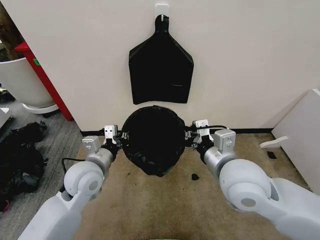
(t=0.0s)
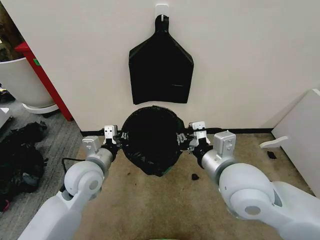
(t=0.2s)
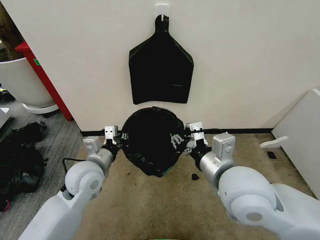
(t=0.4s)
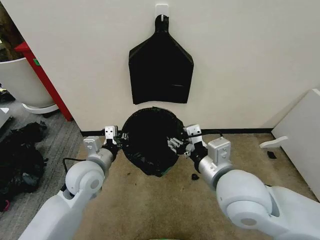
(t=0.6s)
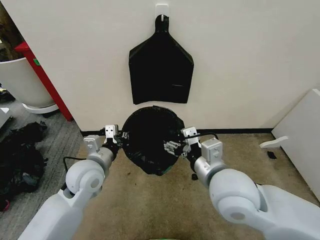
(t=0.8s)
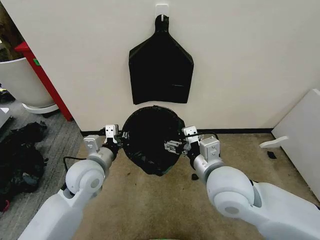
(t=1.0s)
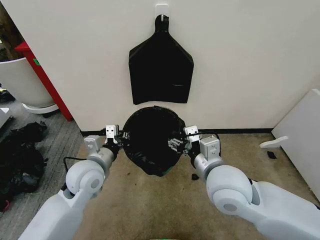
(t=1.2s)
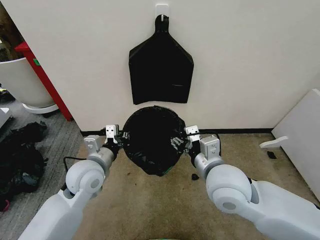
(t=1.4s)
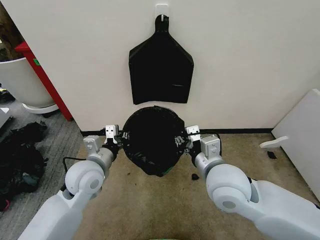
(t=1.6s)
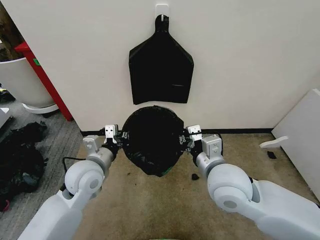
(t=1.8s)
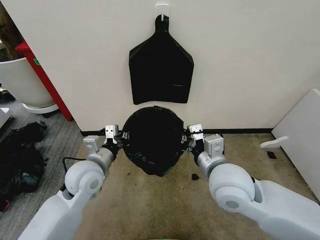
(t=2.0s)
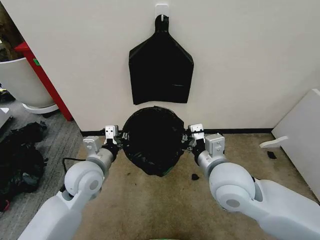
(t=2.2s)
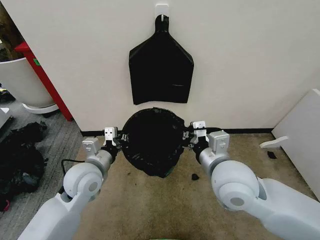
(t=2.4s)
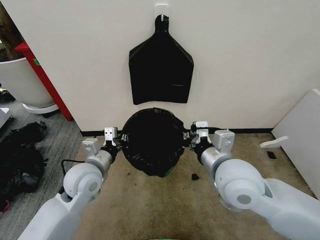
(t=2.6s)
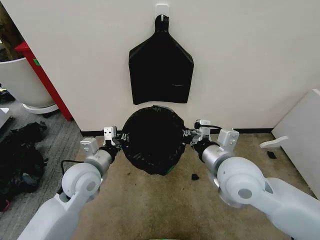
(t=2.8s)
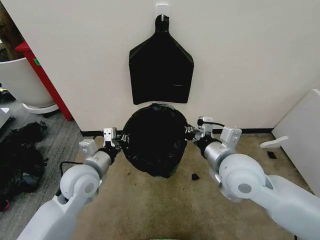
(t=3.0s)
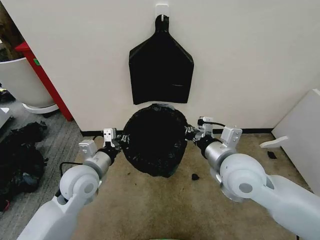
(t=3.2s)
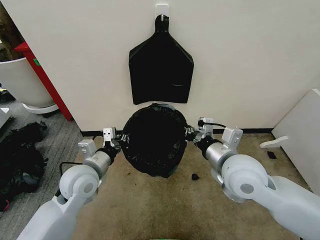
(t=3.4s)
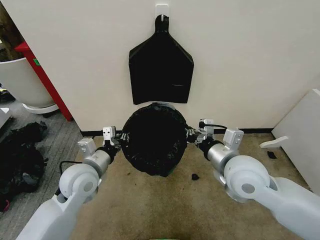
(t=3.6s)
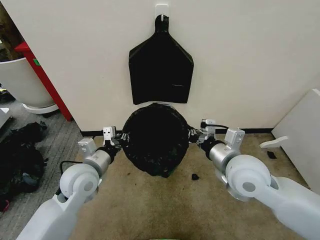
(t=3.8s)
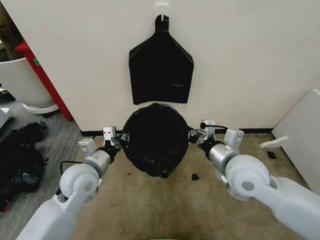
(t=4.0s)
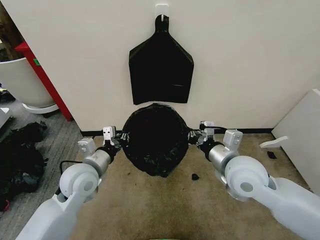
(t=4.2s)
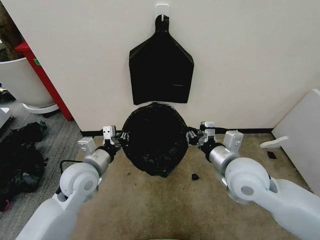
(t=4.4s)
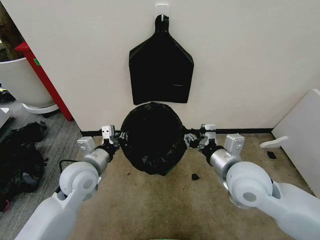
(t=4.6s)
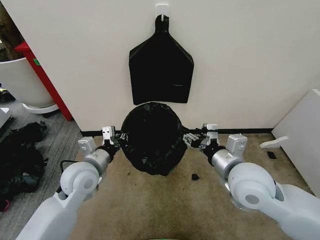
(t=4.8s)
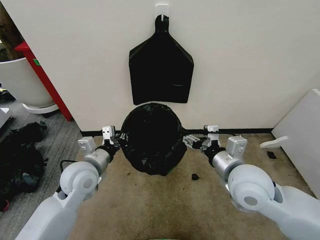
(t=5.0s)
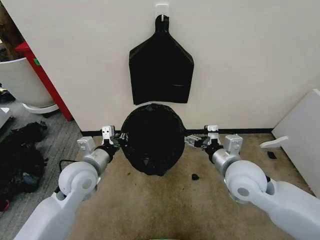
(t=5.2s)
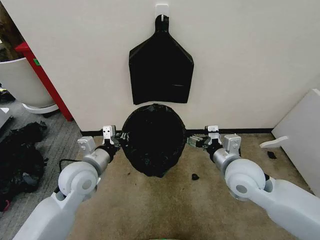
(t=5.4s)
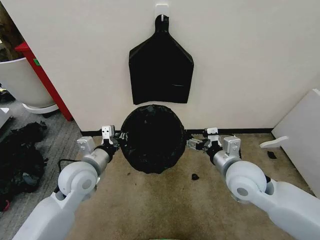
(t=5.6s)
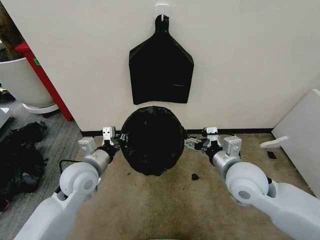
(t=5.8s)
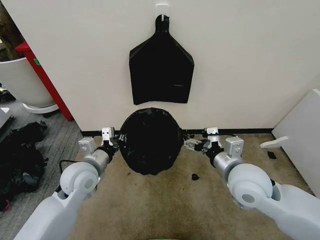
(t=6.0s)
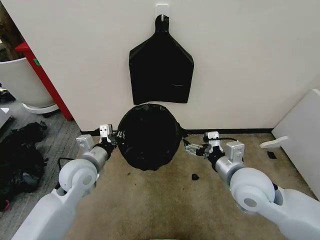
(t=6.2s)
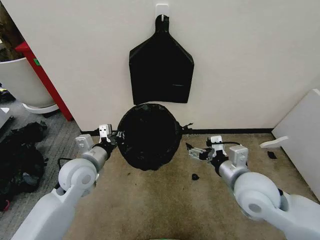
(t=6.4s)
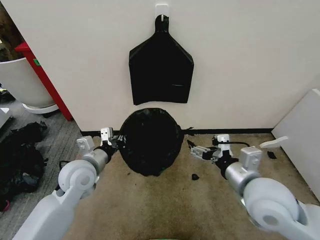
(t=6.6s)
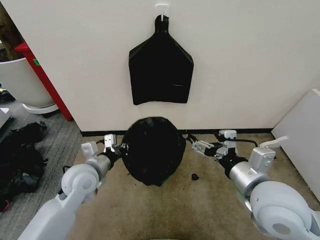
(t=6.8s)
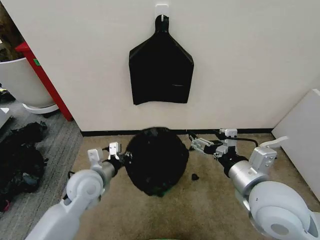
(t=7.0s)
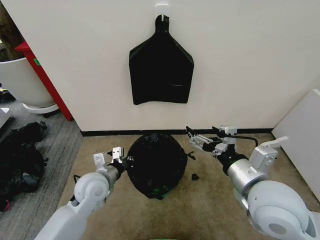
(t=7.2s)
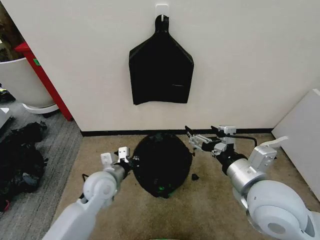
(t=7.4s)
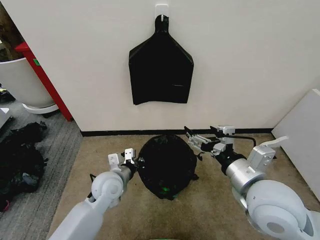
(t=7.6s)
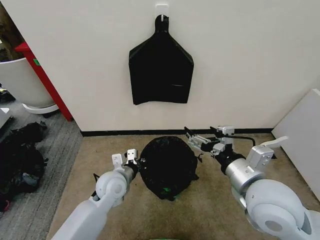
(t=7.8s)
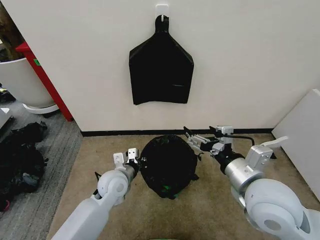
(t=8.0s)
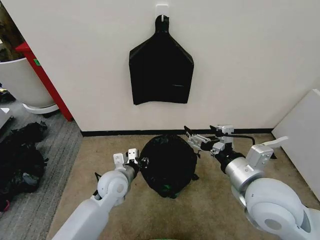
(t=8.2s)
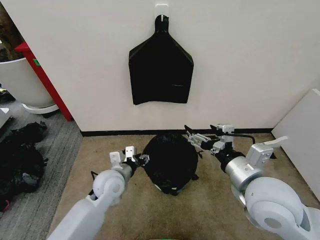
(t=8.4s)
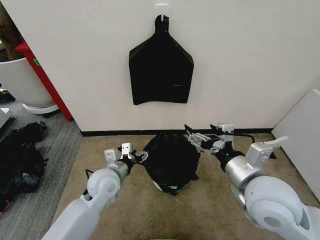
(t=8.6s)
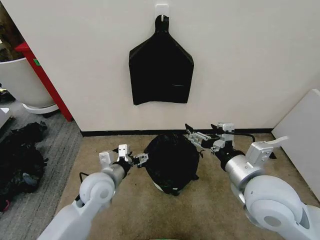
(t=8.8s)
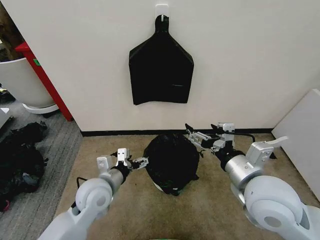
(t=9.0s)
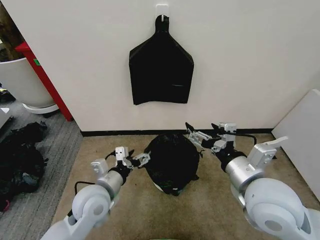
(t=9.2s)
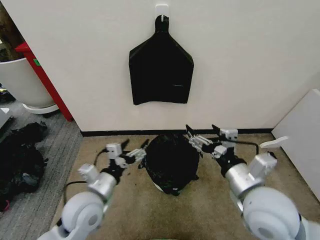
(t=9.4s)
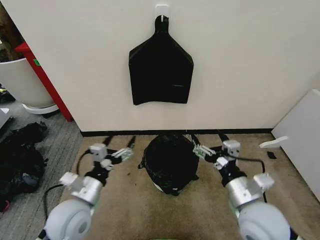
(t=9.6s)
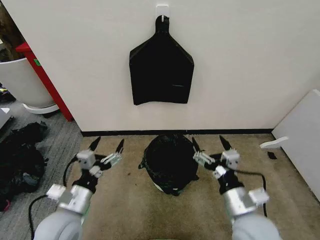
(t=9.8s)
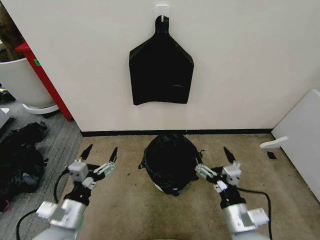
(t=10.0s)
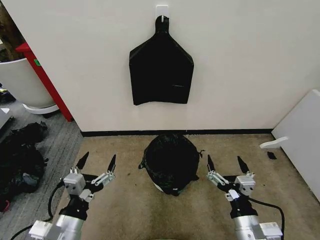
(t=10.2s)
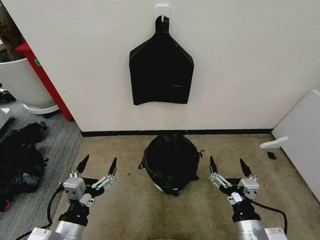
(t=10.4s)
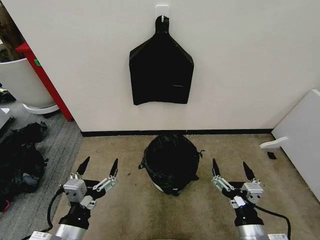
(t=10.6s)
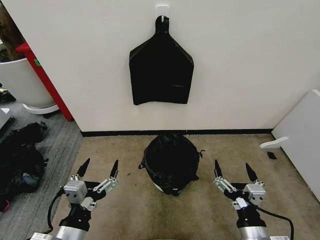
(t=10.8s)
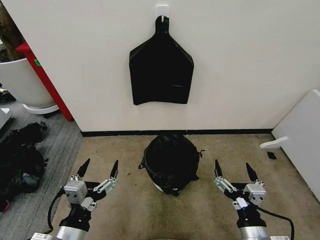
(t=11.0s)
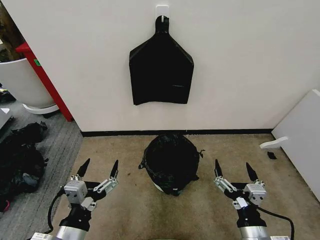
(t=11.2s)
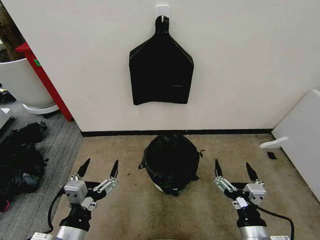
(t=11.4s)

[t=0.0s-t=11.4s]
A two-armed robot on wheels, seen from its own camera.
Task of the whole recording: Place the garbage bag over the trash bin.
t=0.0s to t=1.4s: The right gripper opens up.
t=1.4s to t=2.8s: The right gripper closes its fingers.
t=2.8s to t=4.2s: The grippers make only small movements.
t=4.2s to t=5.6s: The right gripper opens up.
t=5.6s to t=7.2s: The right gripper heads backward and upward, covering roughly 10 cm. The left gripper is displaced downward by approximately 5 cm.
t=7.2s to t=8.6s: The left gripper opens up.
t=8.6s to t=10.0s: The left gripper is displaced backward and to the left by roughly 20 cm; the right gripper moves downward and backward, approximately 15 cm.
t=10.0s to t=11.4s: The left gripper moves backward, approximately 5 cm.

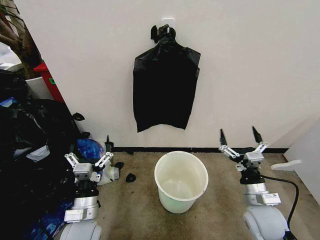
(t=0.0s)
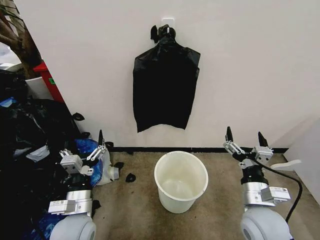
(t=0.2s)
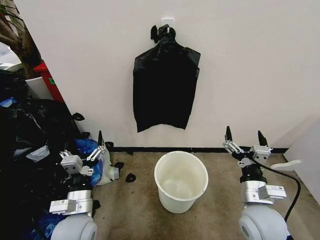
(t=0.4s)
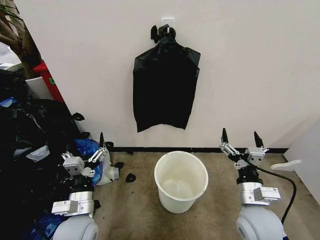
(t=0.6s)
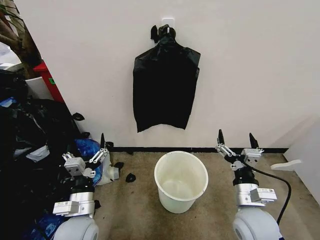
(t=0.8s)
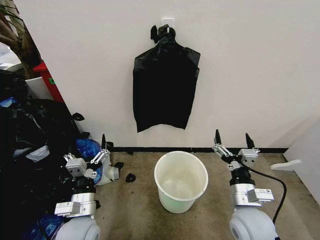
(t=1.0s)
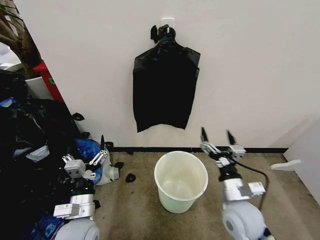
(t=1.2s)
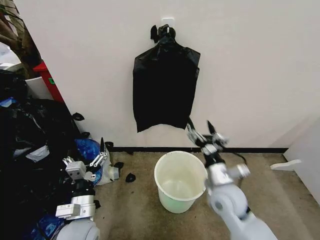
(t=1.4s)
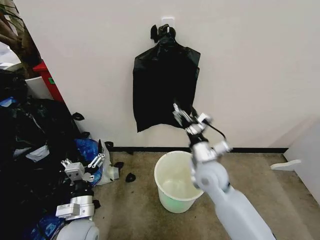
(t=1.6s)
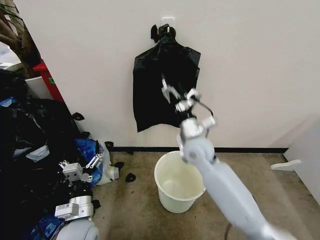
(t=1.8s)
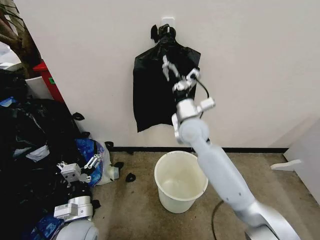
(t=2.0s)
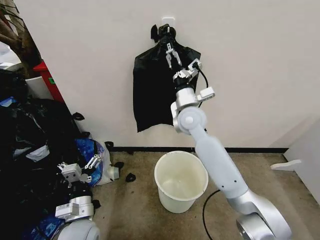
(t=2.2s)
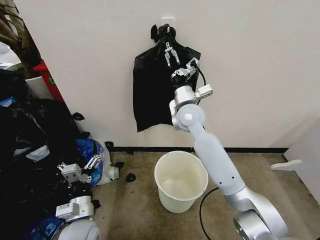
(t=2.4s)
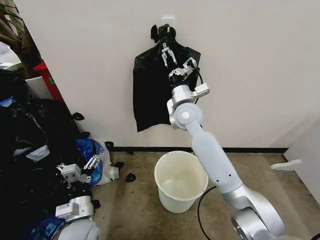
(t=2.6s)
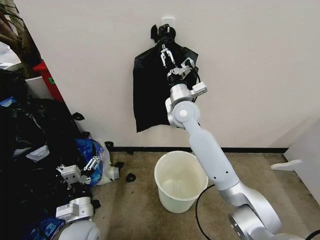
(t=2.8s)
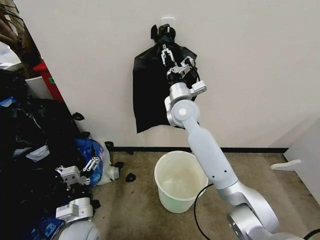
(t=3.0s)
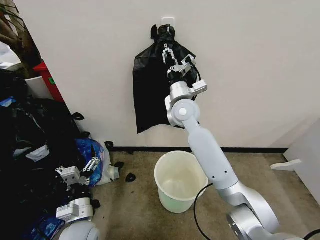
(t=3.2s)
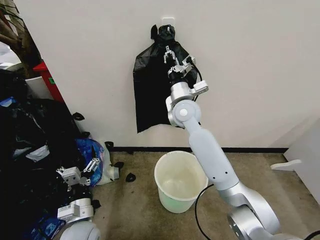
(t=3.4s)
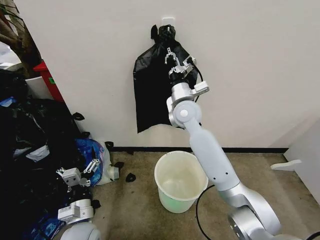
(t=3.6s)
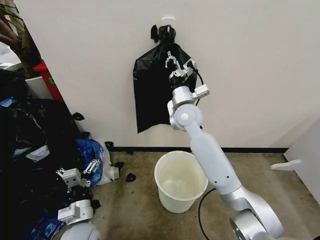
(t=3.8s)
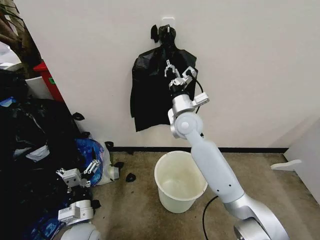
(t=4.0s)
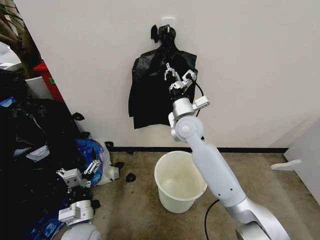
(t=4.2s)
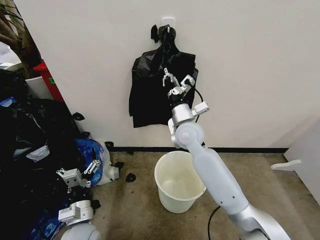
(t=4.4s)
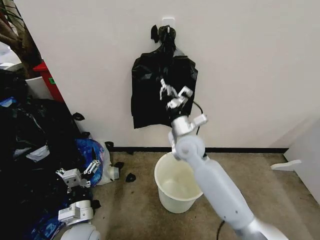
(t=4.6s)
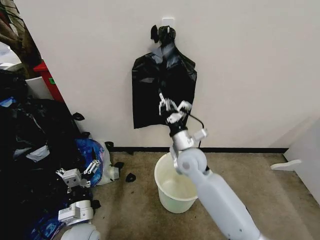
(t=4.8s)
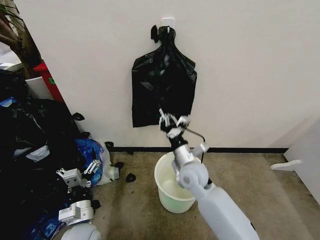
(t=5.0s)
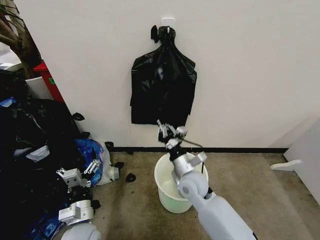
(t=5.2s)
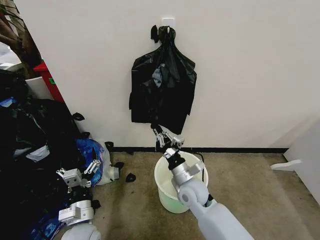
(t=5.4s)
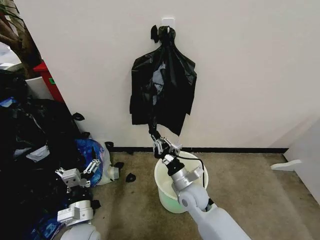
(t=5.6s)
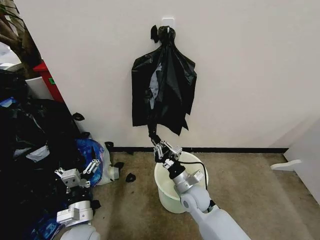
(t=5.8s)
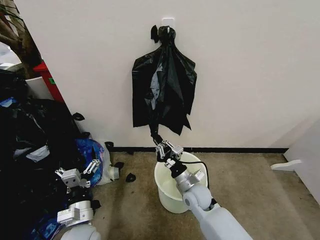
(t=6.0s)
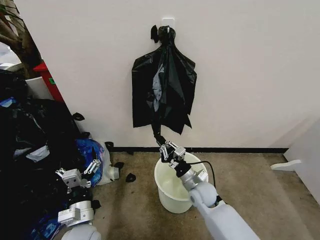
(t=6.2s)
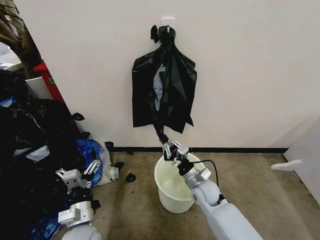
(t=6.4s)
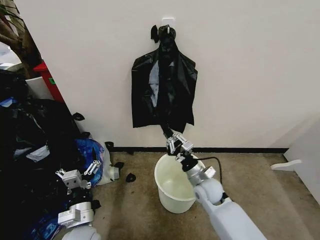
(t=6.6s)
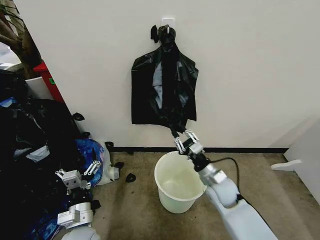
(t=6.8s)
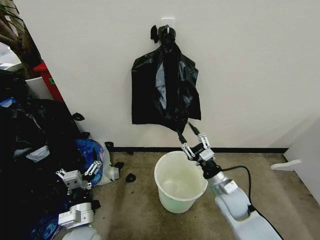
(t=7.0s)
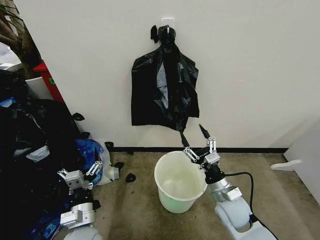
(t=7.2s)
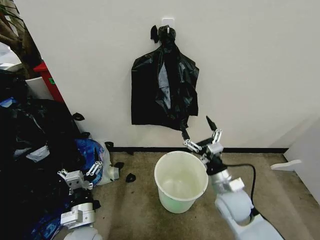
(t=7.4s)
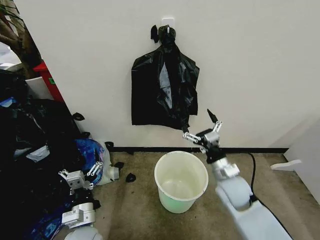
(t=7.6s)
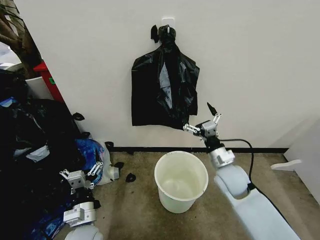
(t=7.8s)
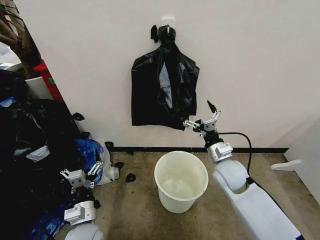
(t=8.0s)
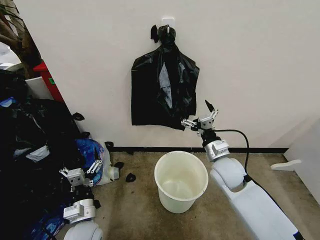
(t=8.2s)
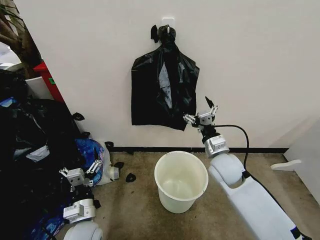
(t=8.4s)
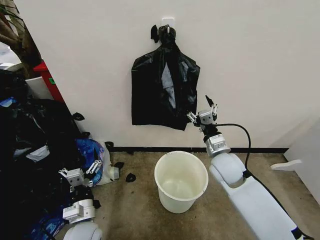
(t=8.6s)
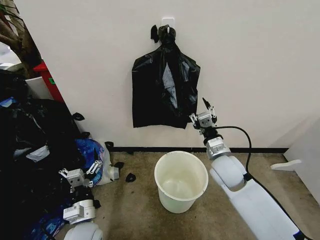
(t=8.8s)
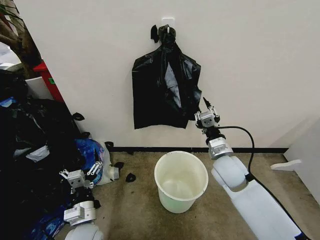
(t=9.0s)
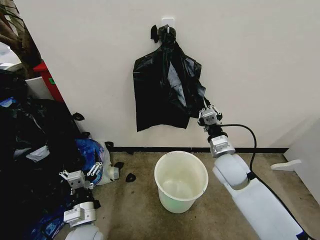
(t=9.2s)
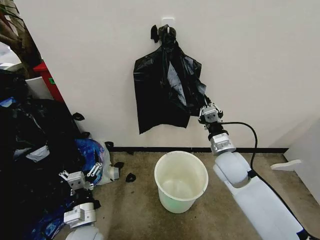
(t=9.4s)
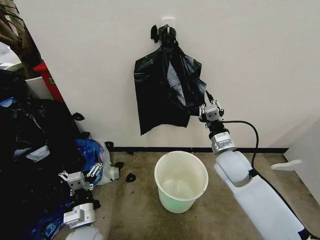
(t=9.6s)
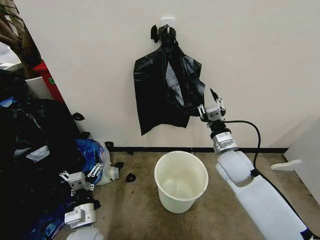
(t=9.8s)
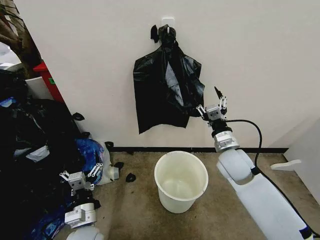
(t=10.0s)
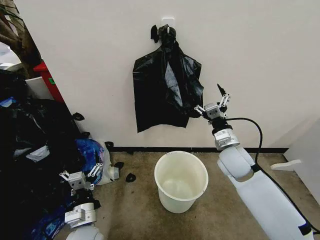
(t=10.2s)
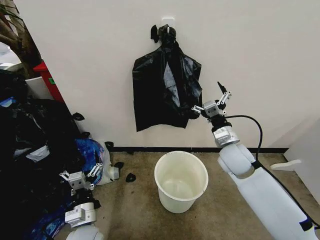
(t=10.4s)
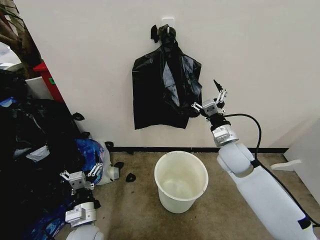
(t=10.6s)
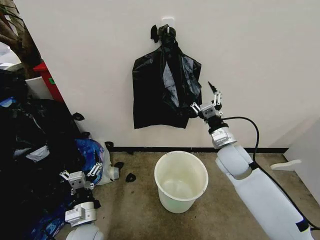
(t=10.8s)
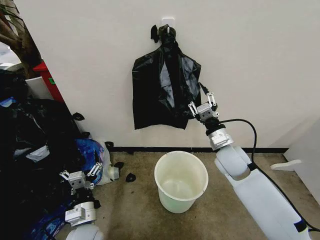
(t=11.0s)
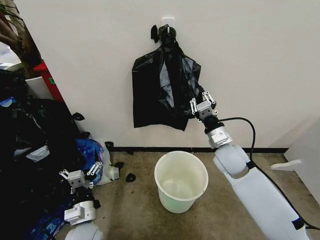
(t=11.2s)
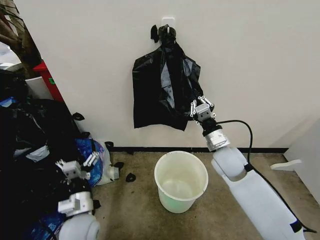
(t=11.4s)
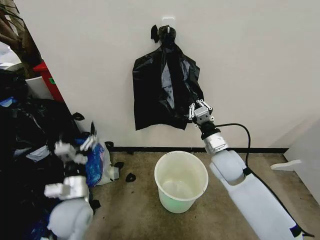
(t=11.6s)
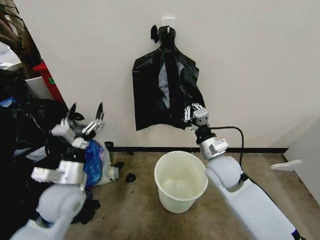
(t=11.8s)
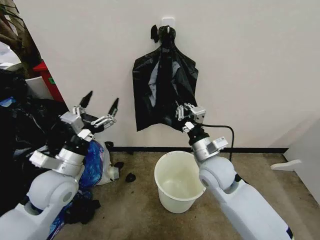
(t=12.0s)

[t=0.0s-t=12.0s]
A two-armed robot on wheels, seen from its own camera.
Task of the whole recording: Place the garbage bag over the trash bin.
t=1.6s to t=3.0s: The right gripper shifts roughly 20 cm forward, upward and to the left, and closes.
t=3.0s to t=4.4s: The right gripper goes some 10 cm downward and backward, and closes.
t=4.4s to t=6.0s: The right gripper moves downward and backward, about 25 cm.
t=6.0s to t=7.6s: The right gripper shifts about 15 cm to the right and upward, and opens up.
t=7.6s to t=9.0s: The right gripper goes roughly 5 cm upward, and closes its fingers.
t=9.0s to t=10.4s: The right gripper opens up.
t=10.4s to t=12.0s: The right gripper goes about 5 cm to the left, and closes its fingers. Meanwhile the left gripper heads upward and forward, covering about 20 cm.
